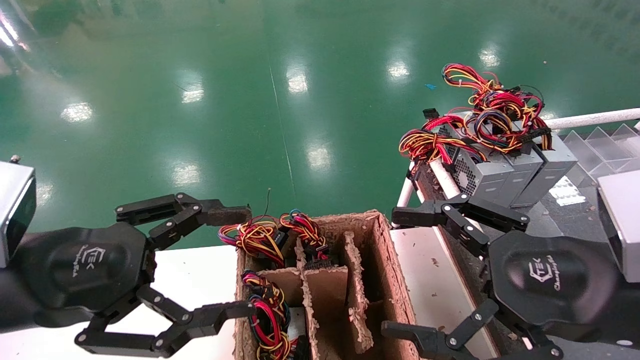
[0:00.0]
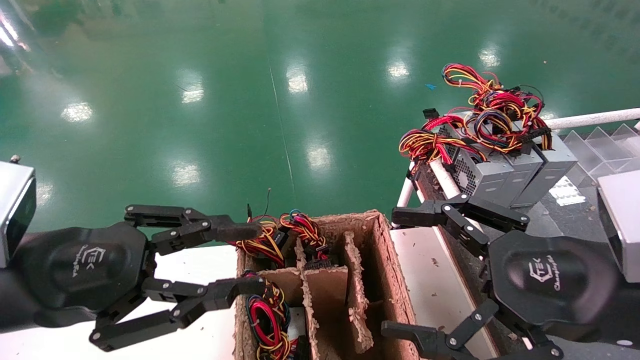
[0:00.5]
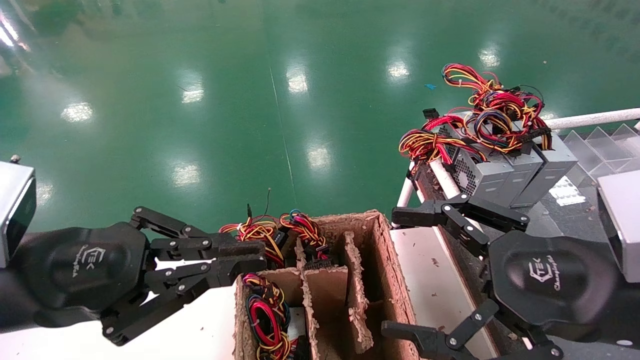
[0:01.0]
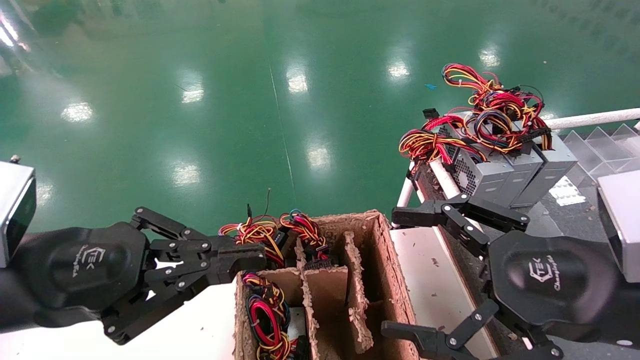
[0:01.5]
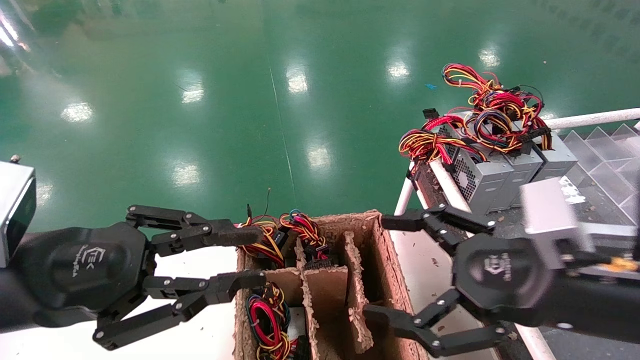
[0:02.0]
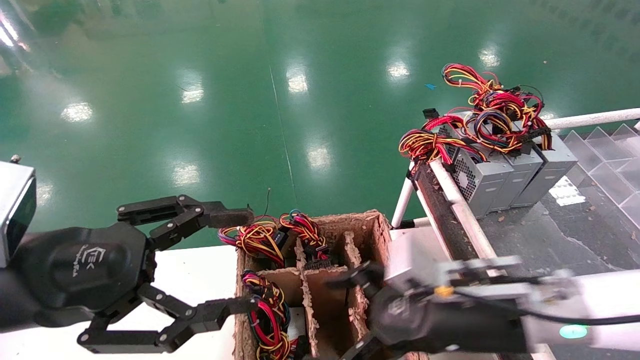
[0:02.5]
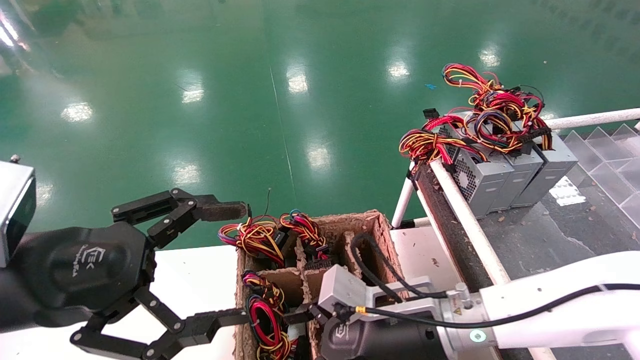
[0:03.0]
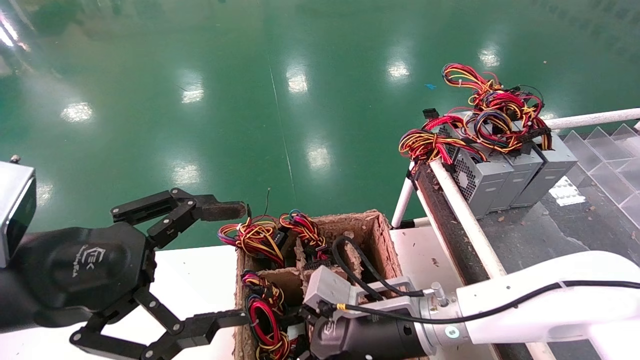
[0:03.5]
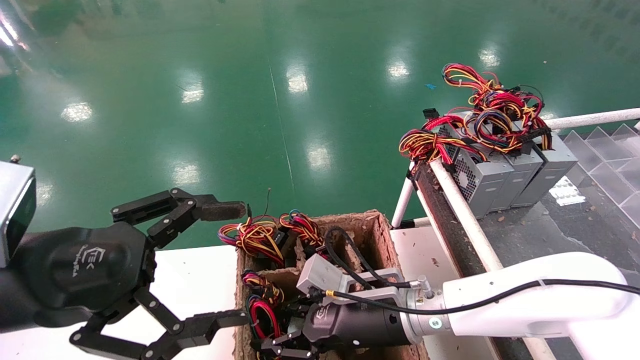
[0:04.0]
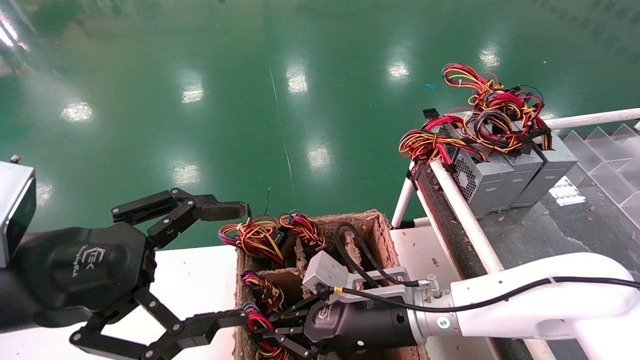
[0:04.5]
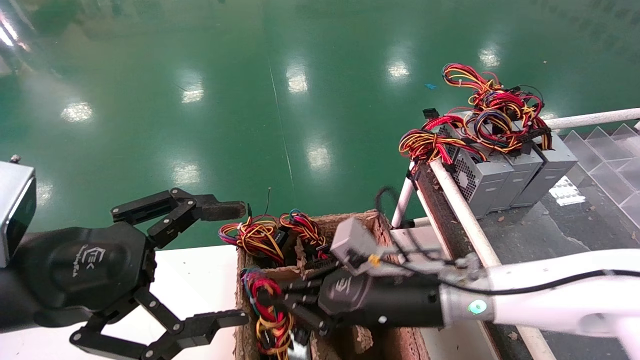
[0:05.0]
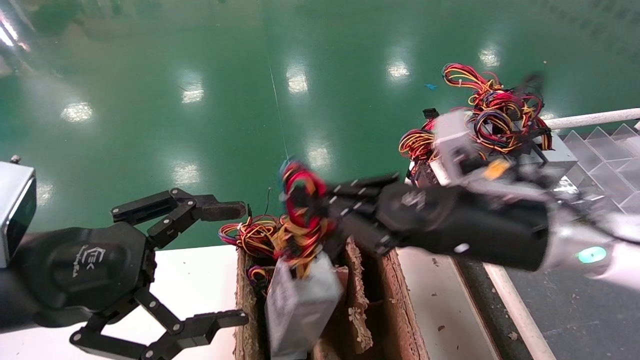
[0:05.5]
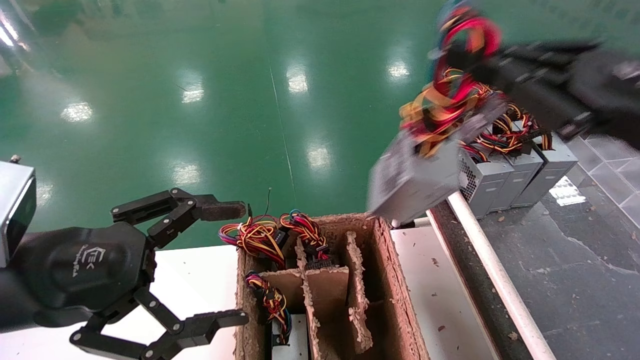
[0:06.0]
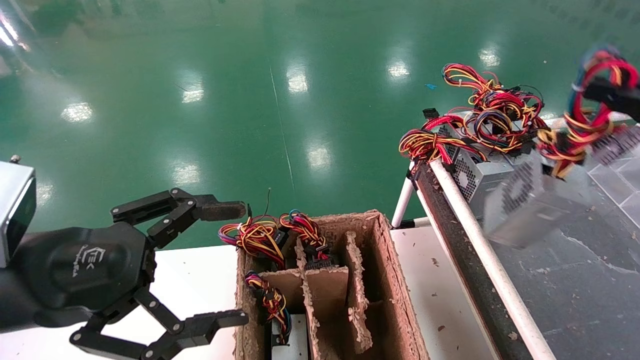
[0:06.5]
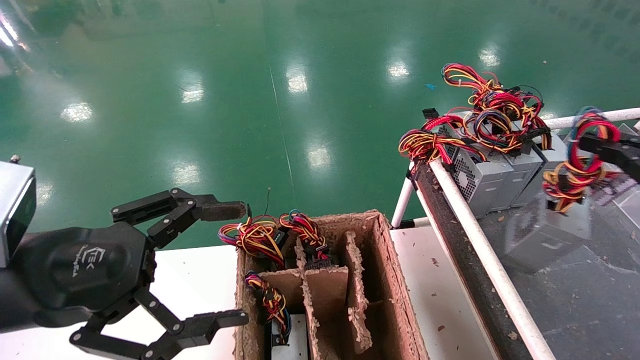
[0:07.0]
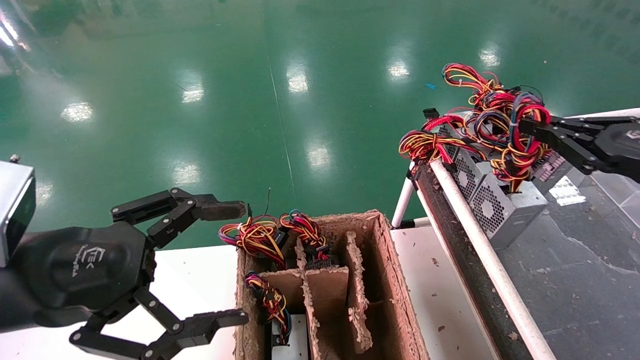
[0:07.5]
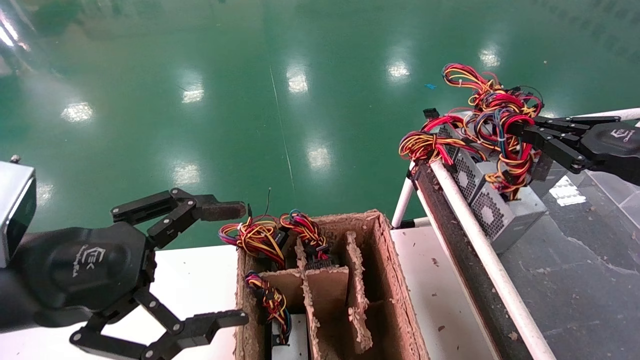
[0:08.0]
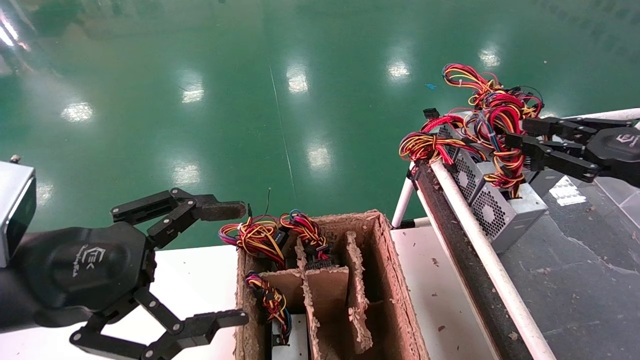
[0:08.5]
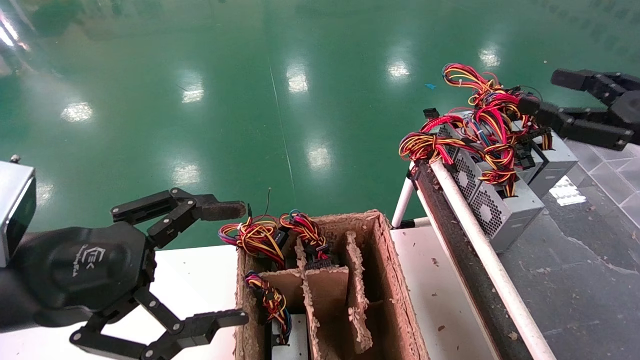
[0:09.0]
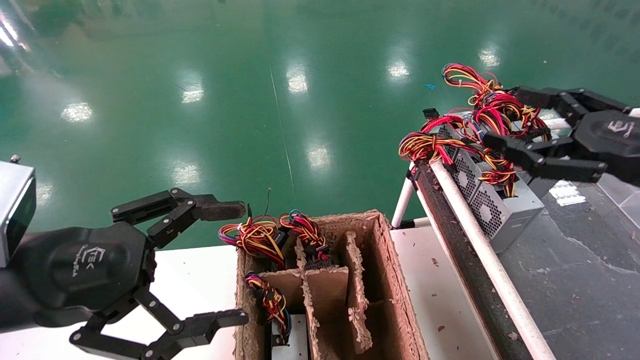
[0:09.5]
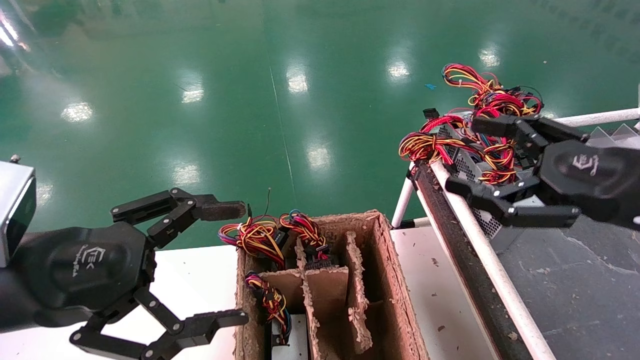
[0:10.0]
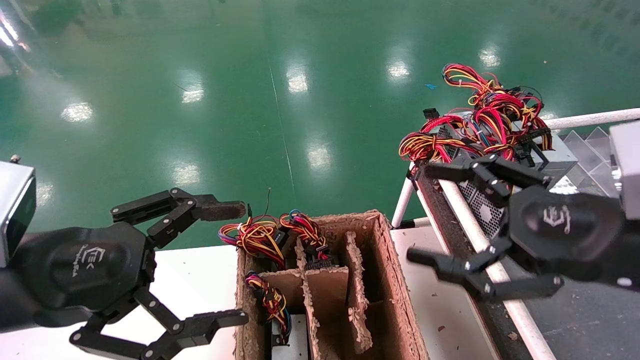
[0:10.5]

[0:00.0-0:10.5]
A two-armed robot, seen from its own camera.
Step, 0:02.0 to 0:04.5: Grab and lift the power supply from the large box.
Step, 0:05.0 to 0:08.0: Place the power supply on the operating table.
0:00.0 to 0:02.0: The left gripper closes.
0:02.0 to 0:04.0: The left gripper opens its fingers; the right gripper shifts roughly 20 cm to the left, downward and forward, and closes.
0:04.0 to 0:06.5: The right gripper moves to the right and upward, approximately 40 cm, and closes.
0:06.5 to 0:08.5: The right gripper heads forward, covering some 10 cm.
0:08.5 to 0:10.5: The right gripper moves to the left and backward, some 15 cm, and opens up.

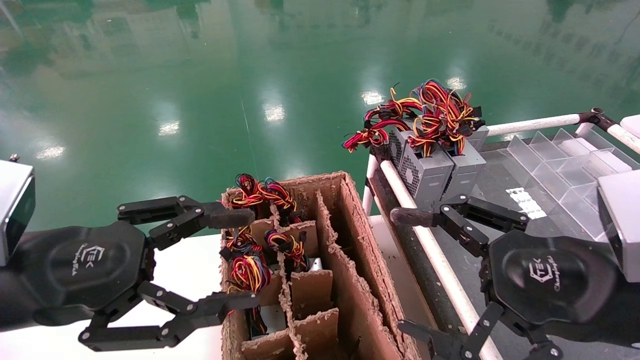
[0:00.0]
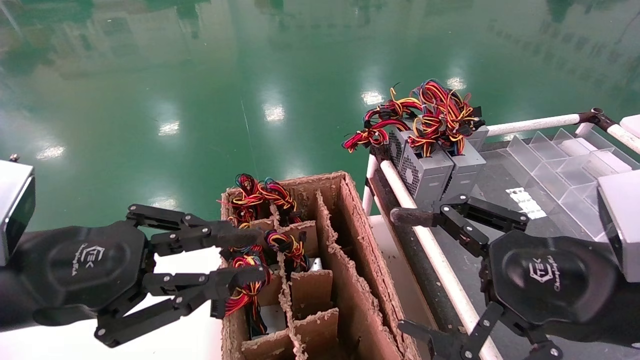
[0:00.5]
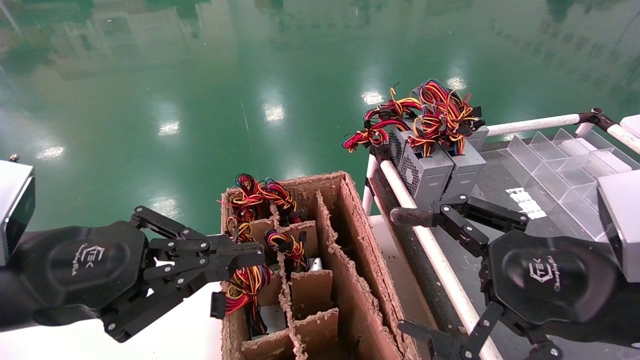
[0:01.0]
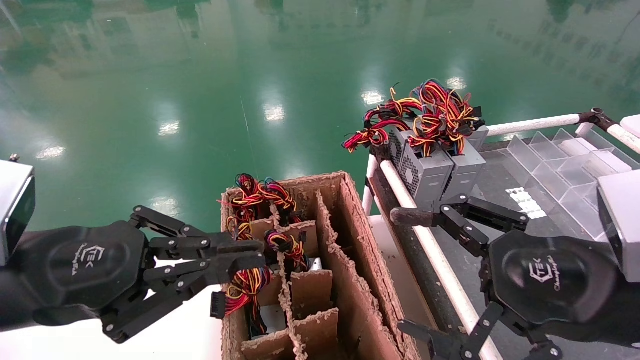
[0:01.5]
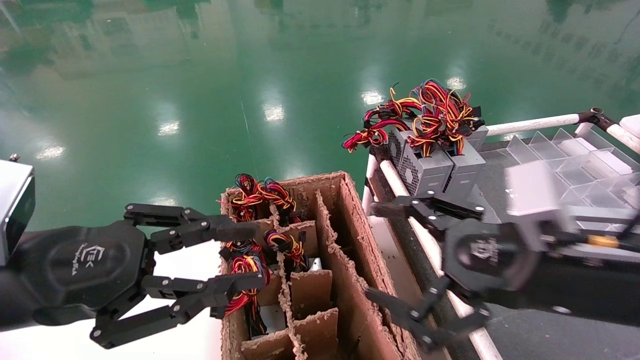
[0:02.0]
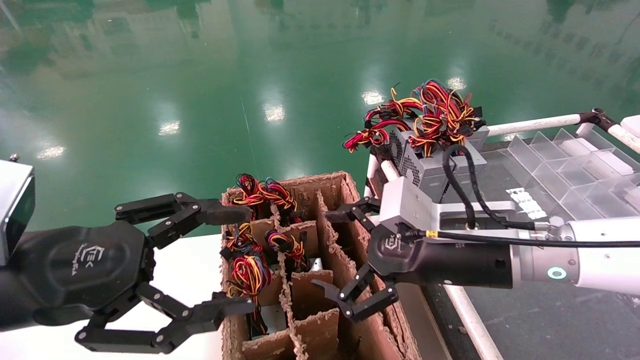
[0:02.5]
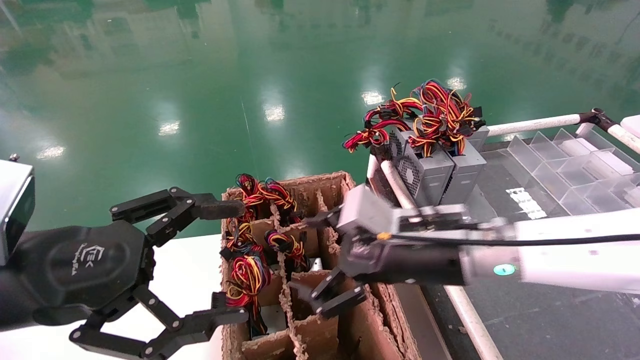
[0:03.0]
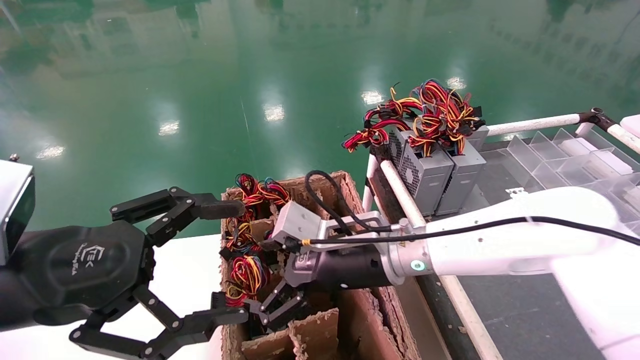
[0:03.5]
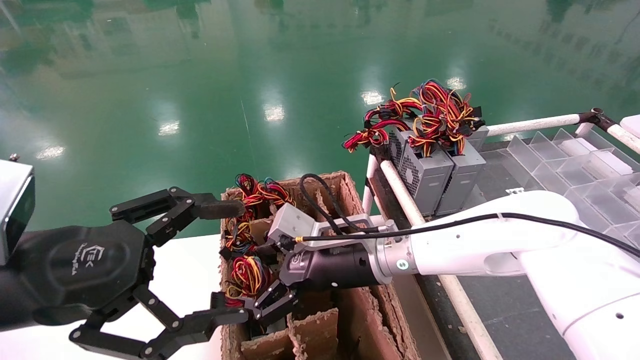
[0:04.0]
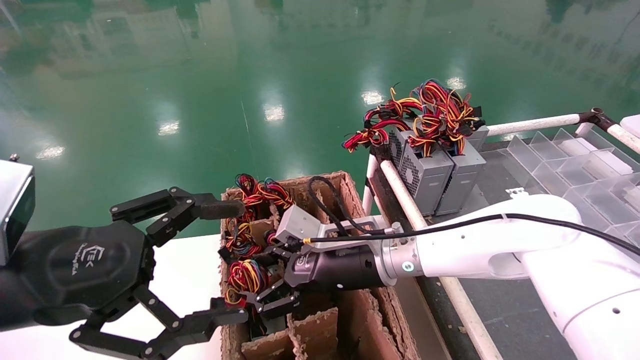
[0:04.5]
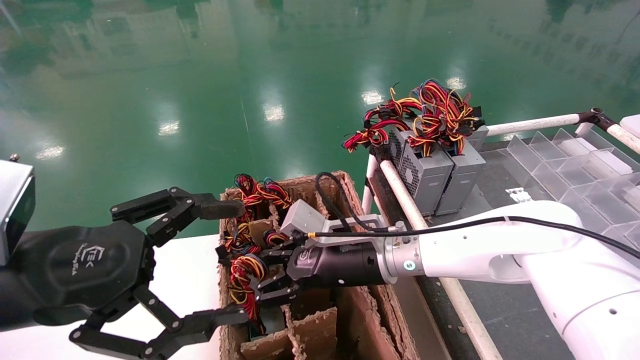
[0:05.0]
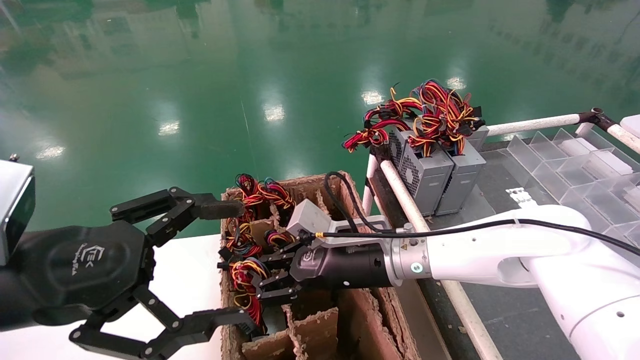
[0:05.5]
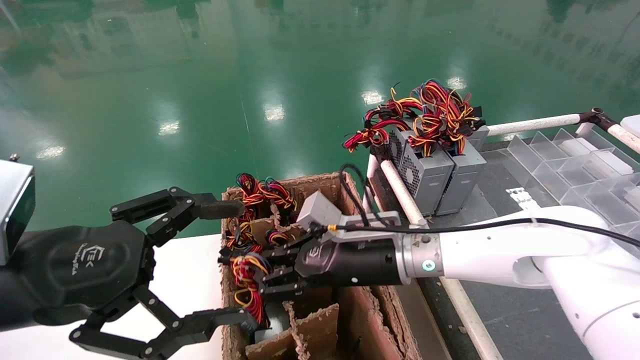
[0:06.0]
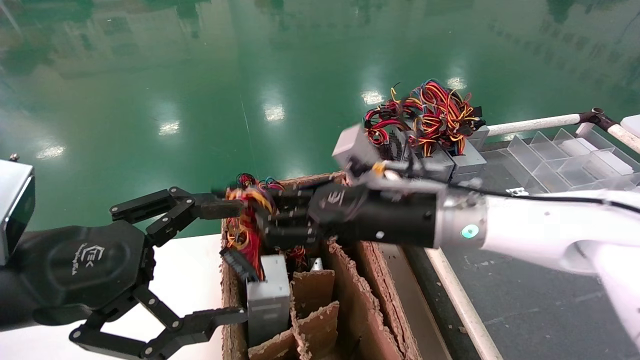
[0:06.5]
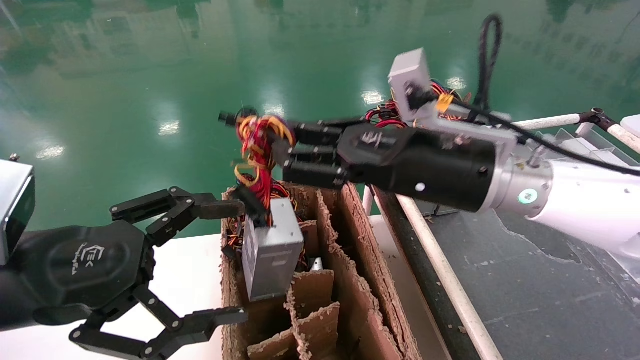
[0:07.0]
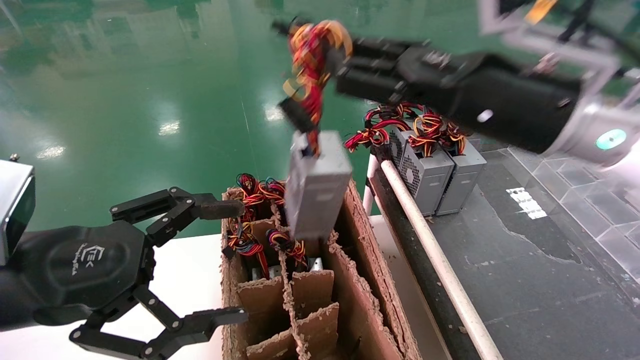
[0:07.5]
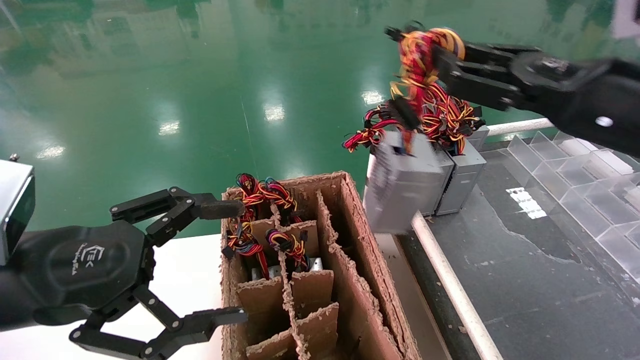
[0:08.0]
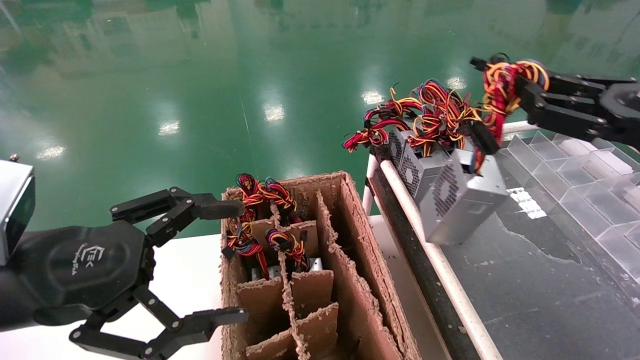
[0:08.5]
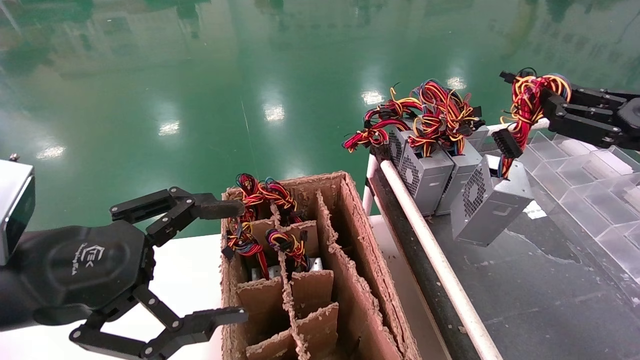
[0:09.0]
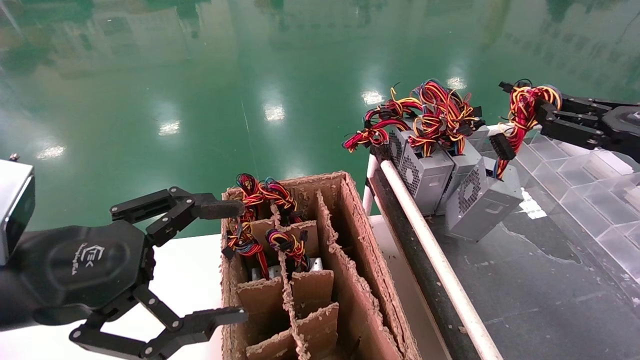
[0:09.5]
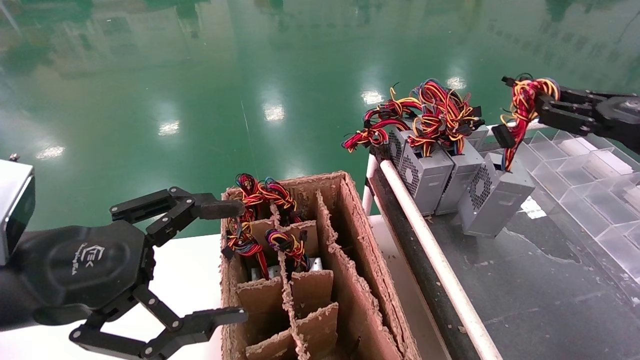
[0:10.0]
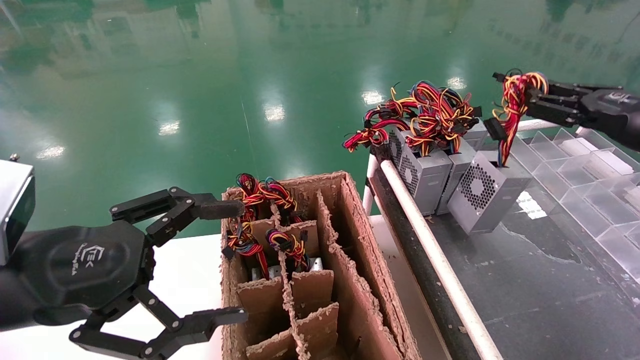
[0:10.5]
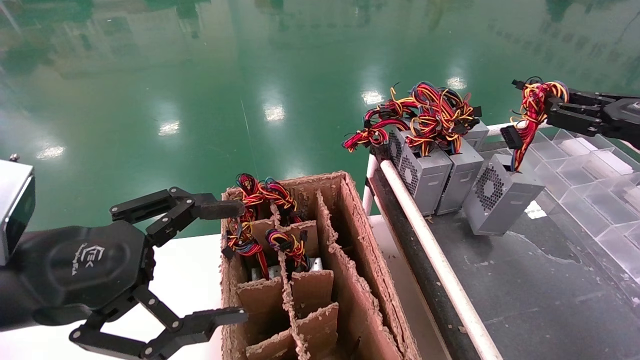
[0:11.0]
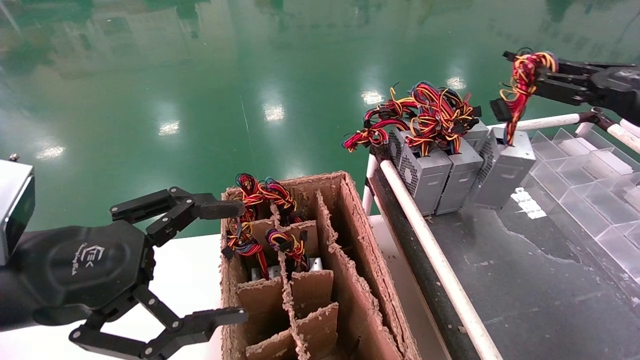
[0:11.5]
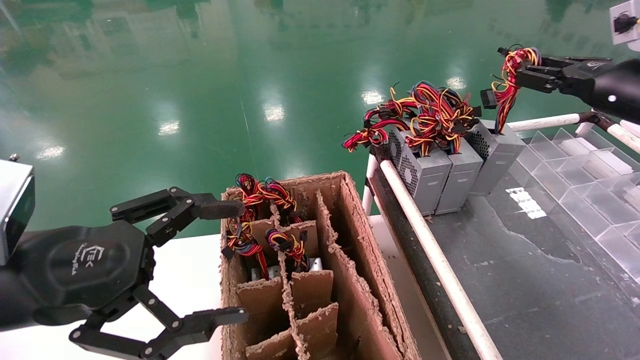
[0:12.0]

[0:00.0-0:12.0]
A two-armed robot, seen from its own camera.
Step, 0:01.0 to 0:05.0: Grab and lift the power supply from the large box.
0:00.0 to 0:02.0: The left gripper closes its fingers, while the right gripper ends up roughly 5 cm from where it was.
0:02.0 to 0:04.0: The left gripper opens. Meanwhile the right gripper goes some 20 cm to the left and forward.
0:04.0 to 0:06.0: The right gripper closes its fingers.
0:06.0 to 0:08.0: The right gripper is displaced to the right, upward and backward by some 30 cm.
0:08.0 to 0:10.0: The right gripper goes some 15 cm to the right.
0:10.0 to 0:12.0: The right gripper shifts roughly 5 cm forward.
